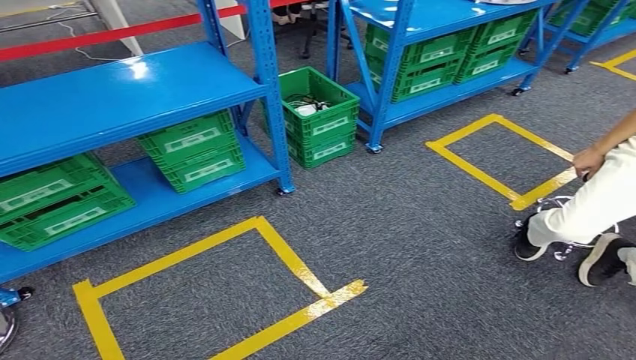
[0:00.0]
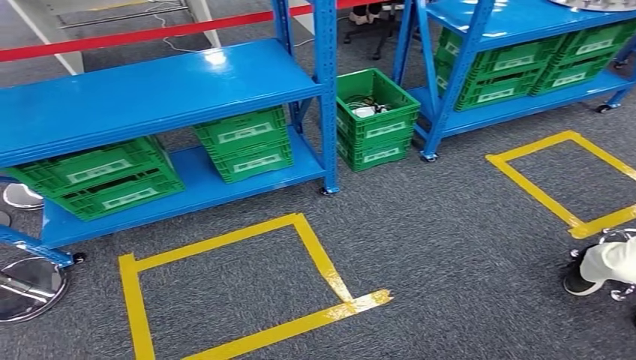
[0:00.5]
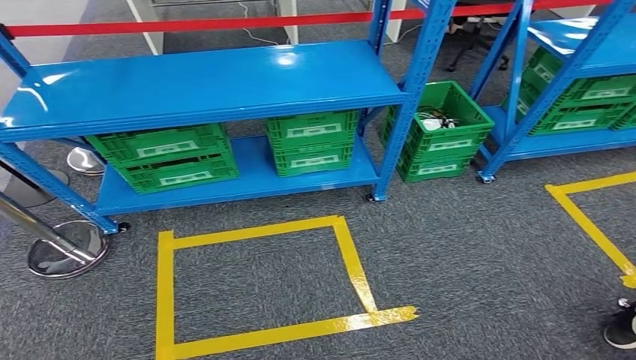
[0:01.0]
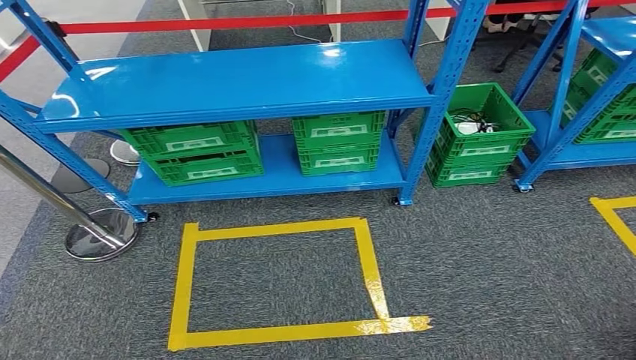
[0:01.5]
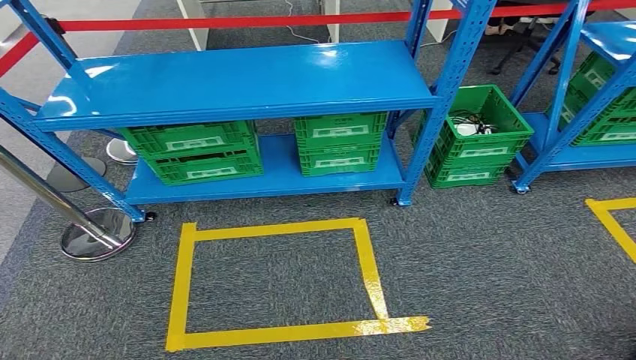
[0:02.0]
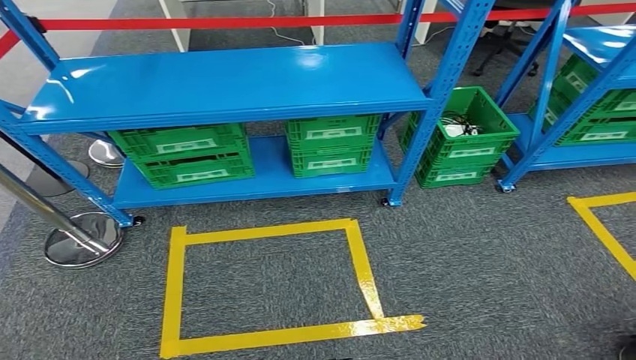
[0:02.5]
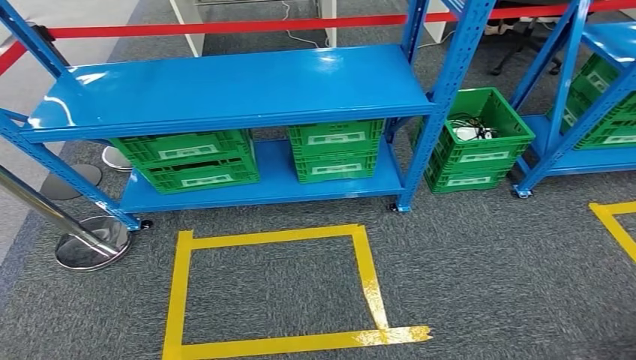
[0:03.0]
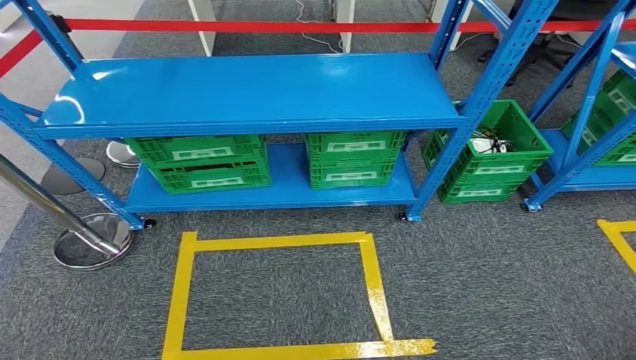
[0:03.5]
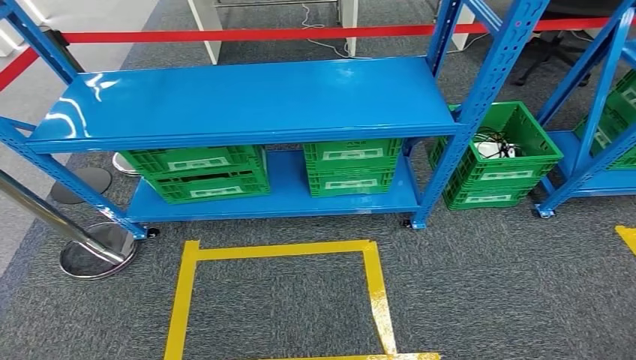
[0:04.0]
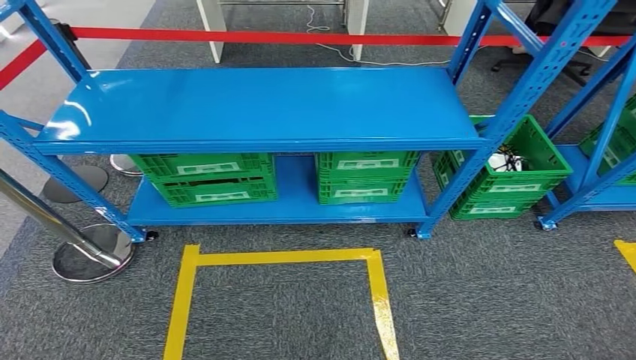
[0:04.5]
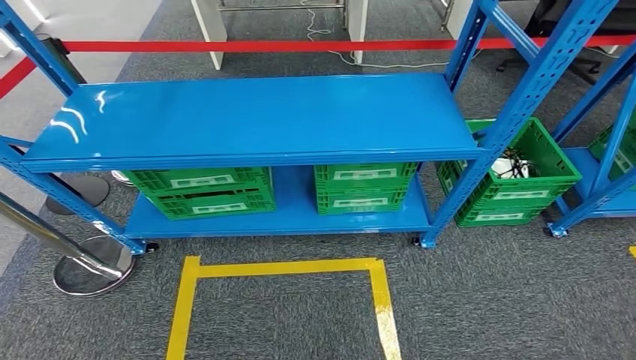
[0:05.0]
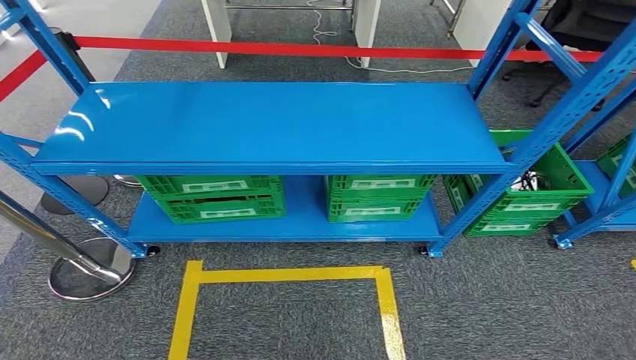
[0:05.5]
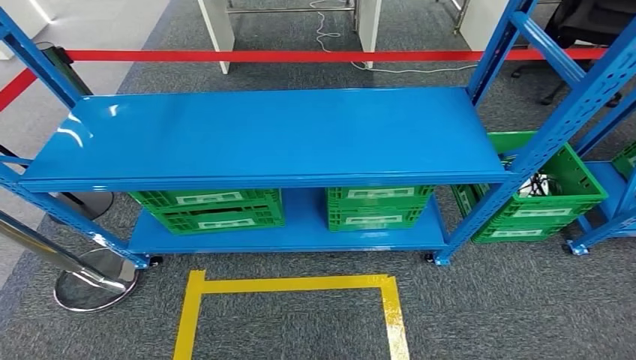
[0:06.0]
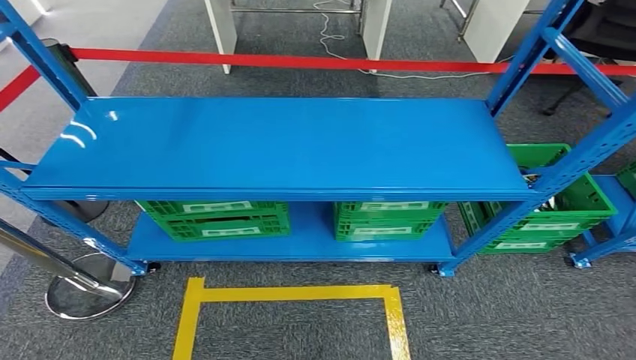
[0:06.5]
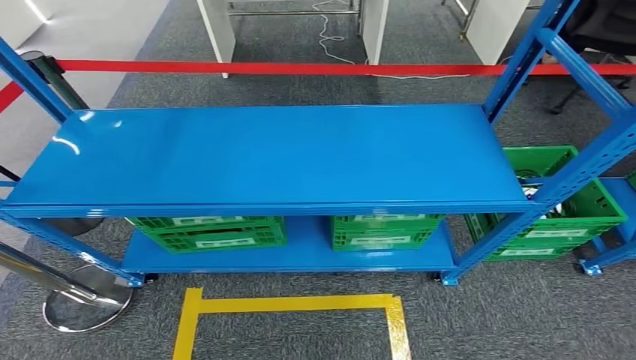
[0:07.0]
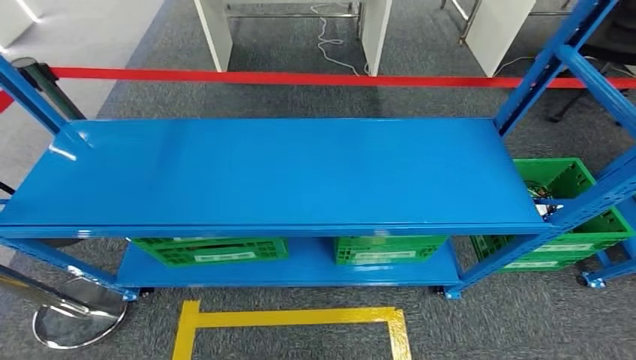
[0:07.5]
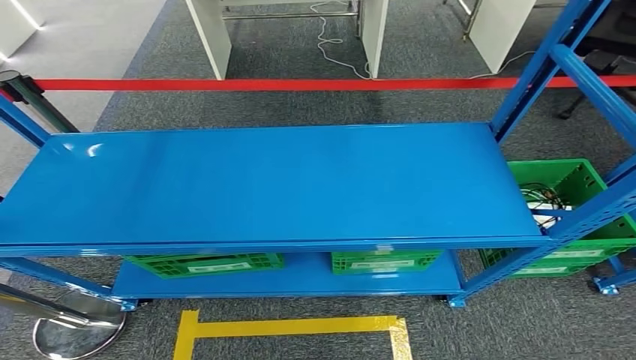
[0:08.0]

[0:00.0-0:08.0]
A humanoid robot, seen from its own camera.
Step, 0:00.0 to 0:08.0: Move to the initial position of the workbench.
